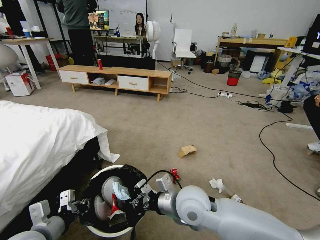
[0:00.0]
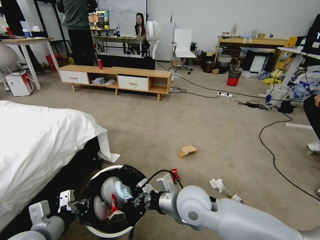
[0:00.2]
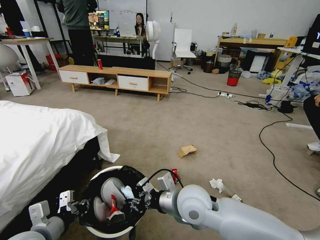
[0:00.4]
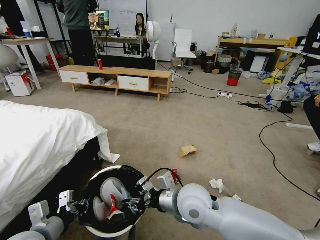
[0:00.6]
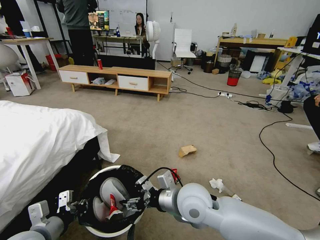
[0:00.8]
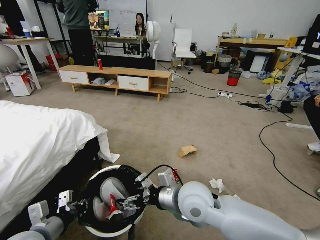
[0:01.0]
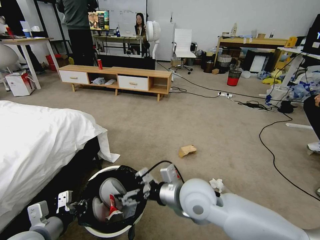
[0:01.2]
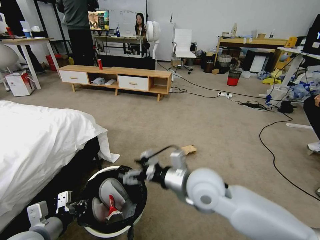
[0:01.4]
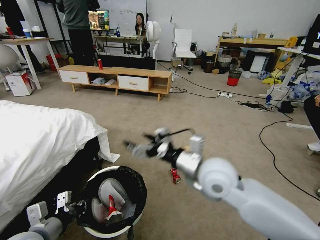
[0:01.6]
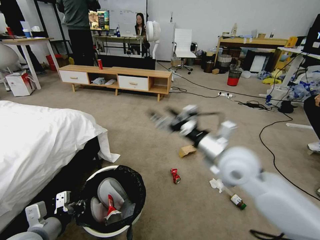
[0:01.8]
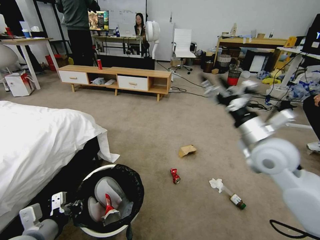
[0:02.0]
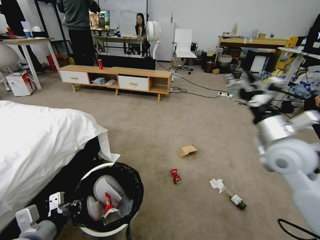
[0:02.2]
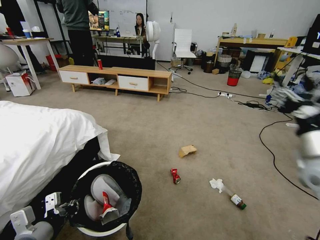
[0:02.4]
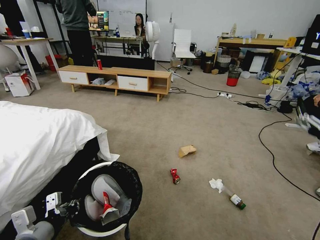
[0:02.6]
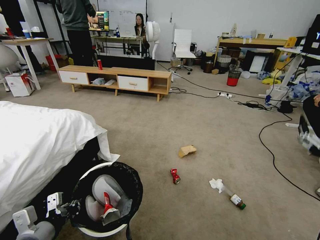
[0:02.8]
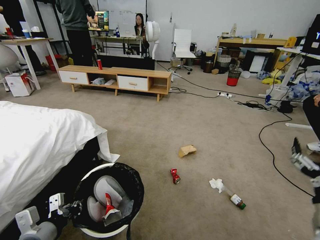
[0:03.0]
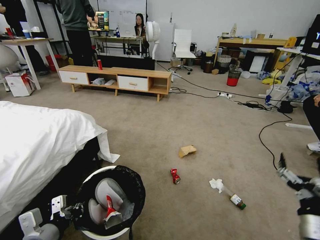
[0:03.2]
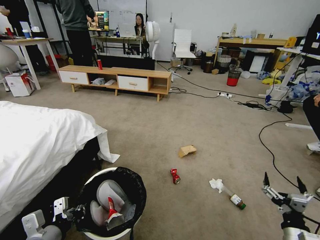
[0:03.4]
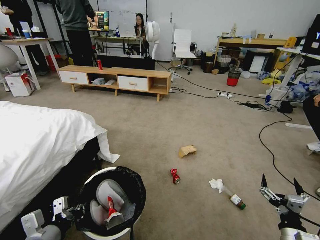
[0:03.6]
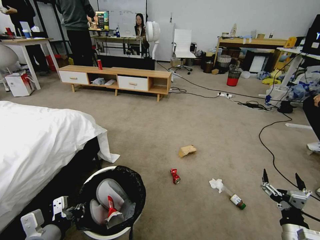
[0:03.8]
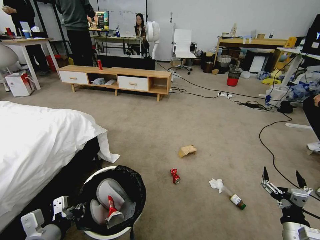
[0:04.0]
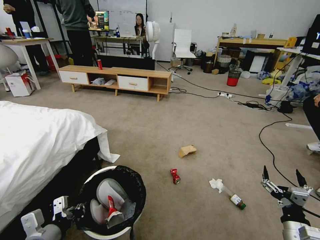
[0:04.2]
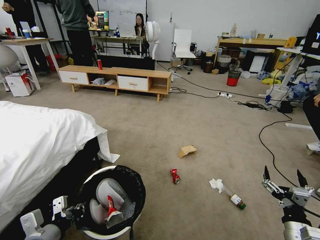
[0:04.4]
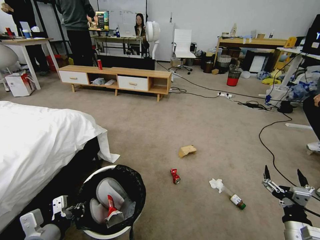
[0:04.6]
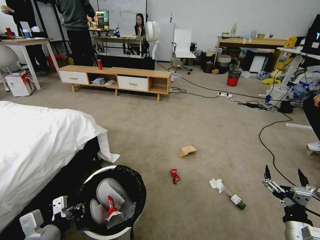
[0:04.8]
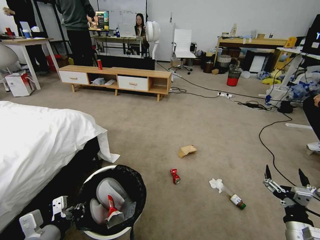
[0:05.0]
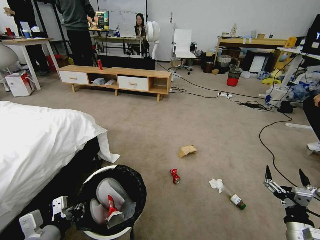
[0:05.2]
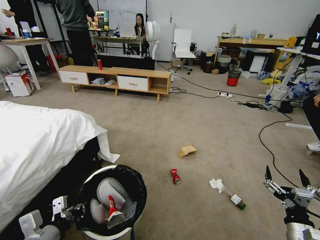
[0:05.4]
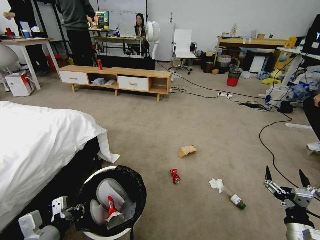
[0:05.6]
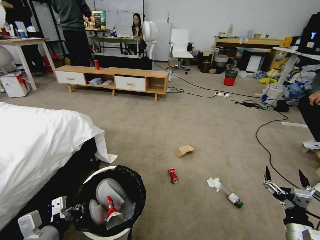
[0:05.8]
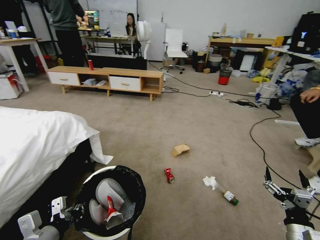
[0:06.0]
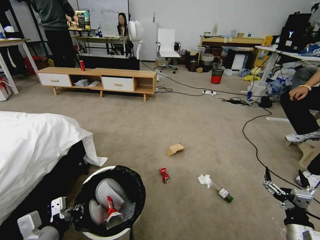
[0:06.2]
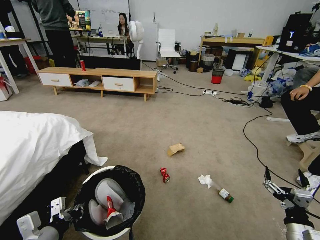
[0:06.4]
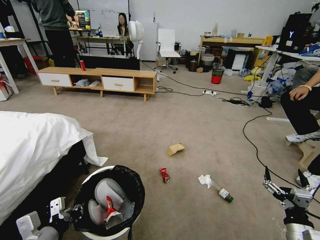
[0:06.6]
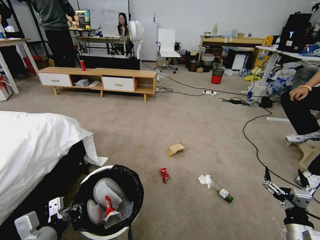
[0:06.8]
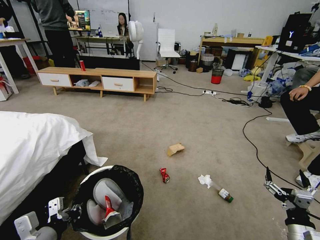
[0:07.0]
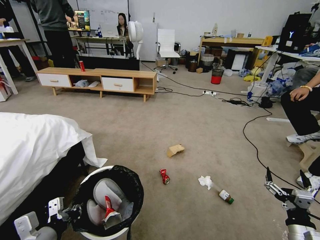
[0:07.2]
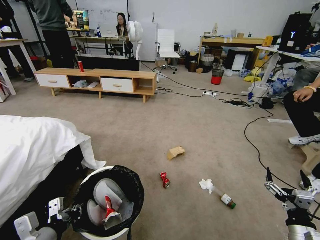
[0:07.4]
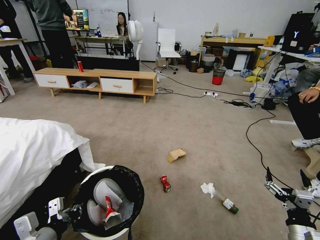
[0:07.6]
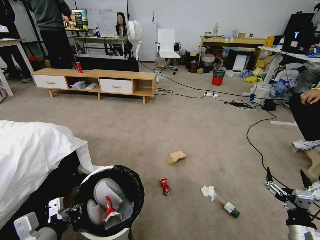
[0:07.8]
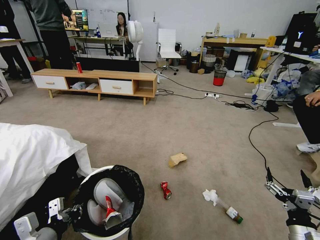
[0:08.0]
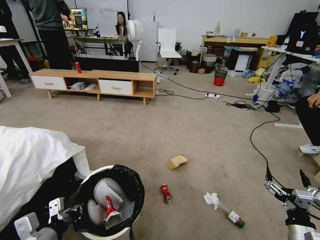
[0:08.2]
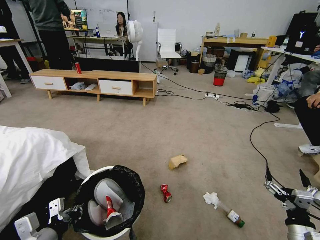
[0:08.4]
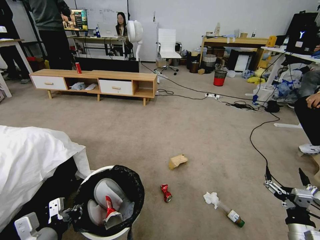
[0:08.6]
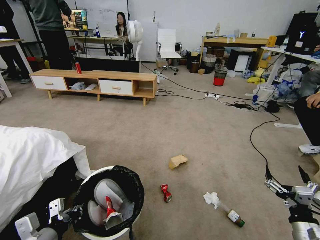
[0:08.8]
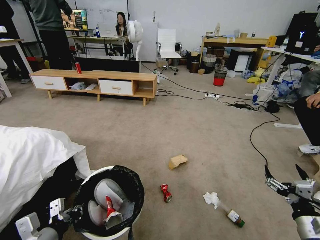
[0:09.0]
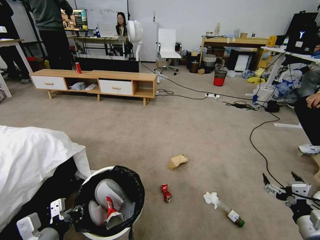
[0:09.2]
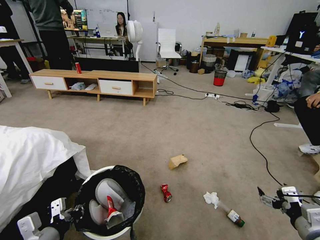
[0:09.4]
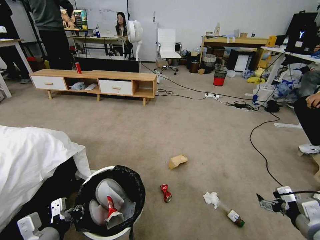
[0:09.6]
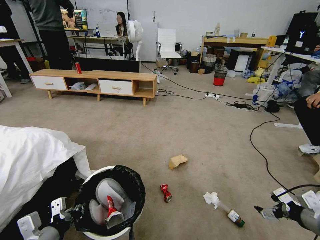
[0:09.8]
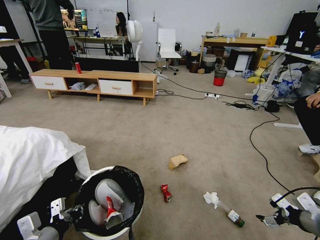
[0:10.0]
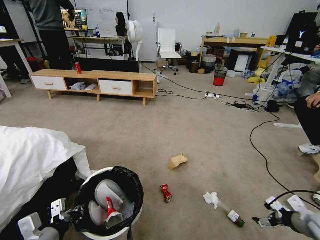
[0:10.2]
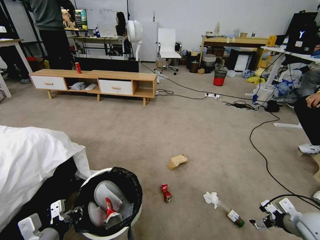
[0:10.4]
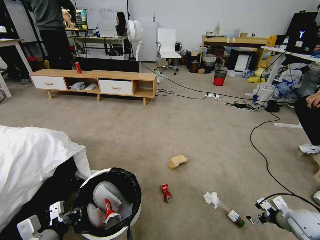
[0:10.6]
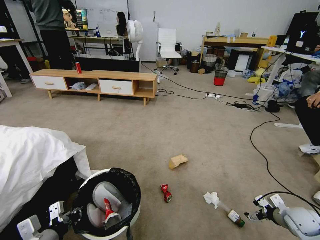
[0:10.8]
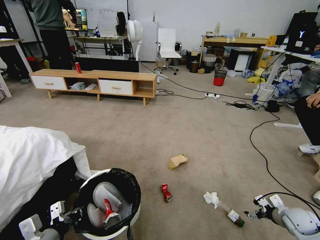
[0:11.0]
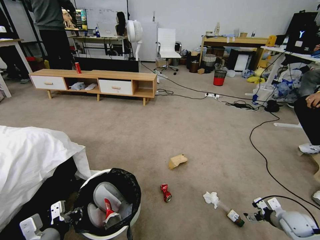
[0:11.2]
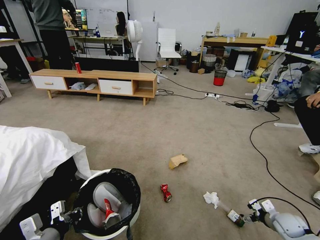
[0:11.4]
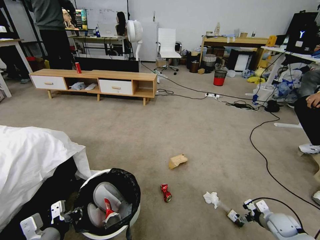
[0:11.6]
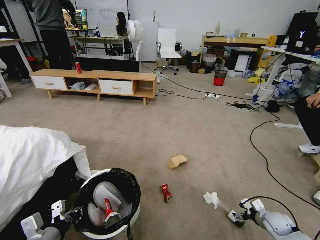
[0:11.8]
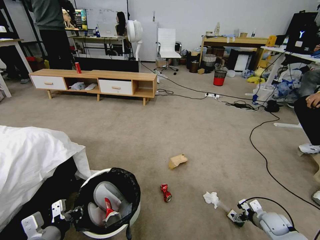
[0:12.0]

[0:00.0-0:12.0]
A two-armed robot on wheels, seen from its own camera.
Task of the whole recording: Pick up the trash bin, then pick up the garbage from the floor and place it into the trash bin.
0:00.0 to 0:01.6: The right gripper goes roughly 10 cm upward and to the right, and opens its fingers.
0:01.6 to 0:03.0: The right gripper moves to the right and backward, approximately 30 cm.
0:03.0 to 0:04.4: The right gripper heads downward, covering roughly 10 cm.
0:09.0 to 0:10.4: The right gripper is displaced forward and to the right by about 10 cm, and reaches roughly 10 cm upward, then returns.
0:10.4 to 0:12.0: The right gripper goes some 15 cm downward and forward.

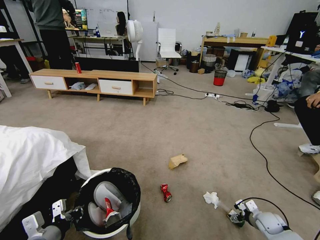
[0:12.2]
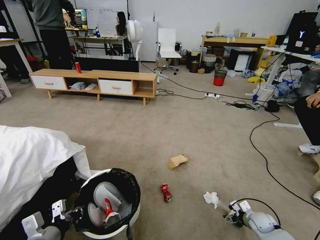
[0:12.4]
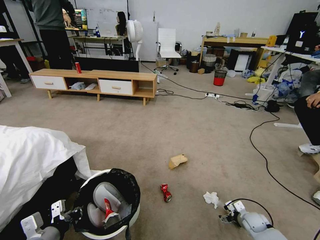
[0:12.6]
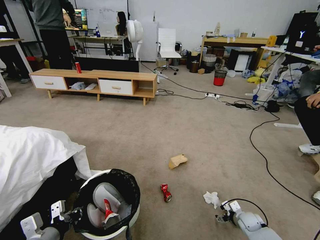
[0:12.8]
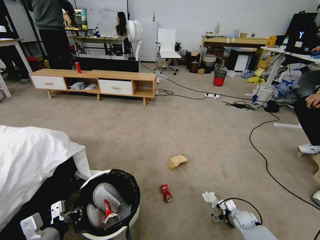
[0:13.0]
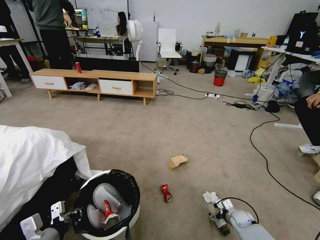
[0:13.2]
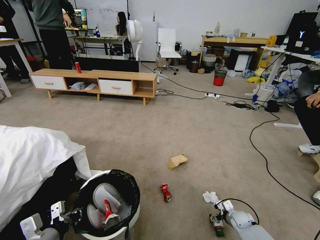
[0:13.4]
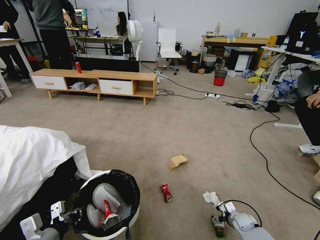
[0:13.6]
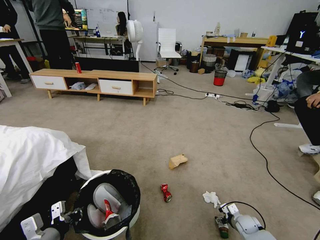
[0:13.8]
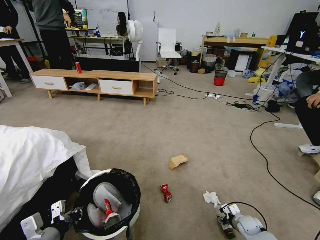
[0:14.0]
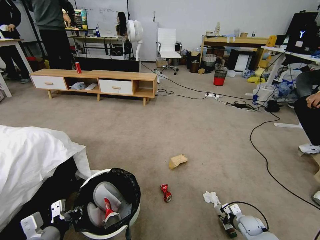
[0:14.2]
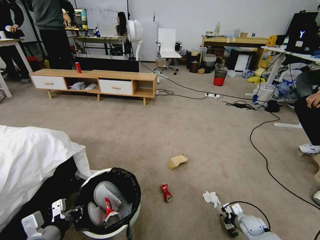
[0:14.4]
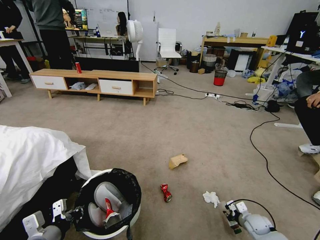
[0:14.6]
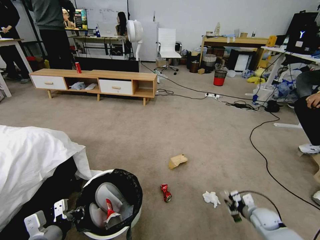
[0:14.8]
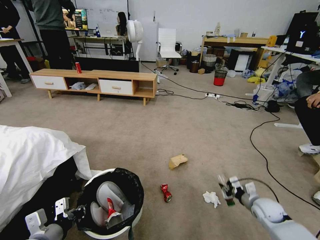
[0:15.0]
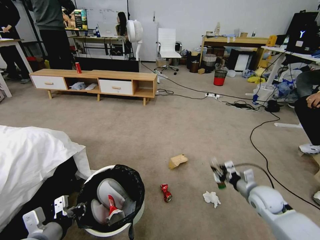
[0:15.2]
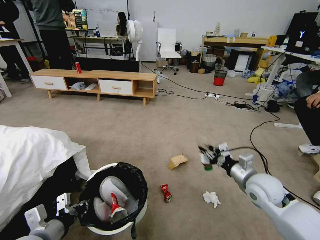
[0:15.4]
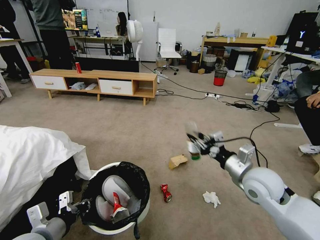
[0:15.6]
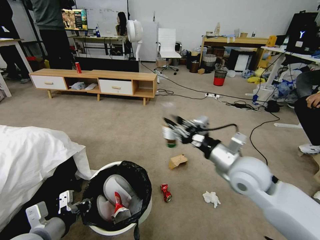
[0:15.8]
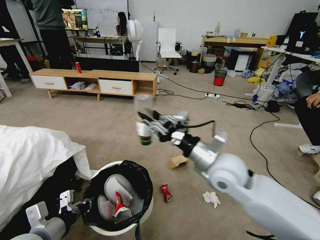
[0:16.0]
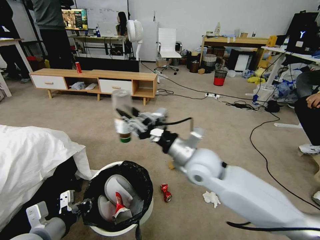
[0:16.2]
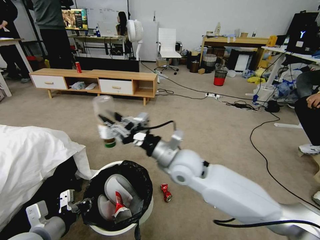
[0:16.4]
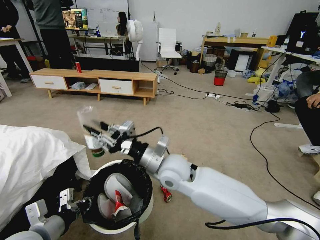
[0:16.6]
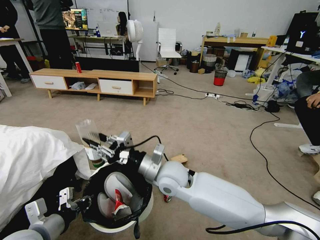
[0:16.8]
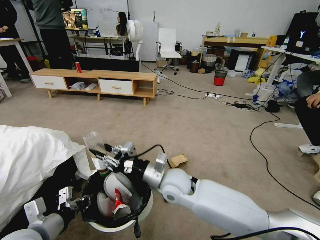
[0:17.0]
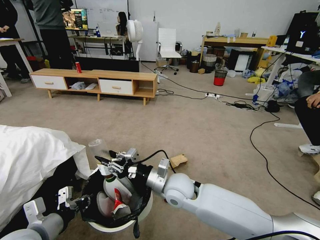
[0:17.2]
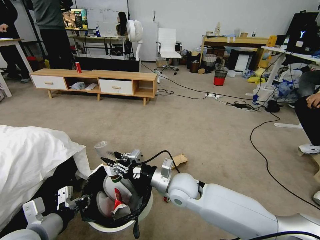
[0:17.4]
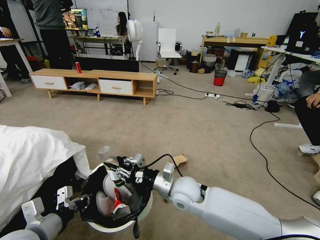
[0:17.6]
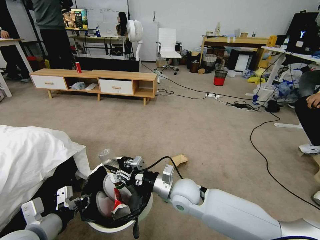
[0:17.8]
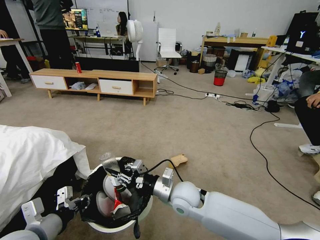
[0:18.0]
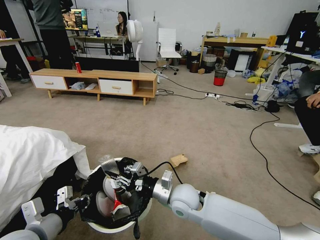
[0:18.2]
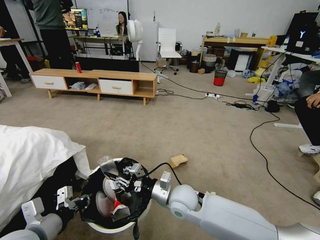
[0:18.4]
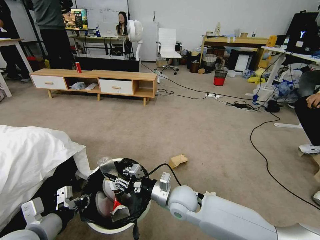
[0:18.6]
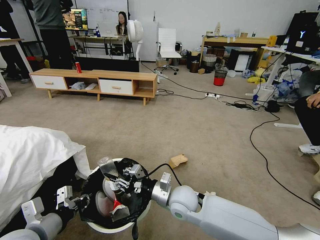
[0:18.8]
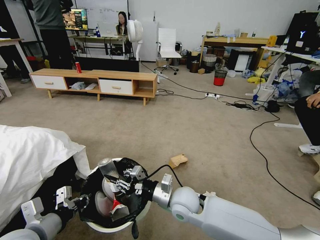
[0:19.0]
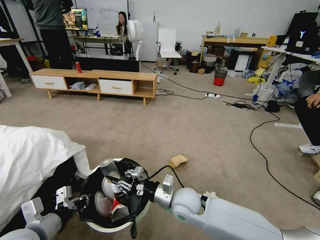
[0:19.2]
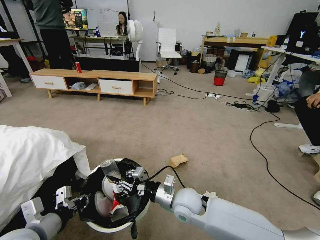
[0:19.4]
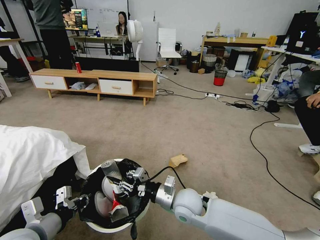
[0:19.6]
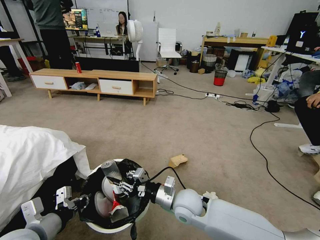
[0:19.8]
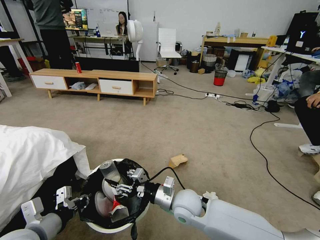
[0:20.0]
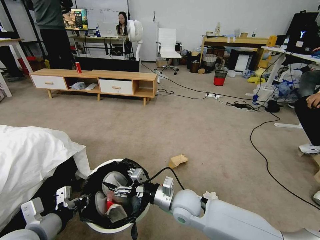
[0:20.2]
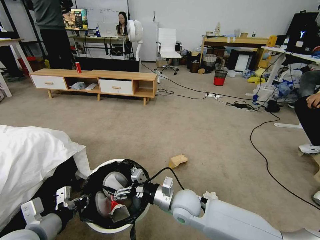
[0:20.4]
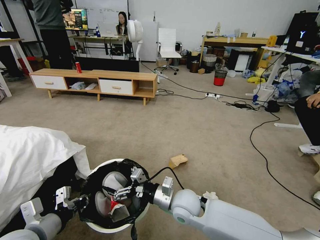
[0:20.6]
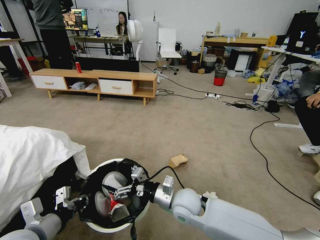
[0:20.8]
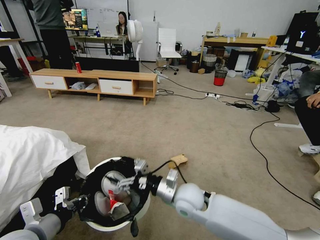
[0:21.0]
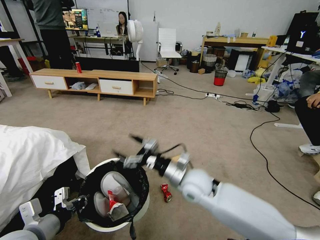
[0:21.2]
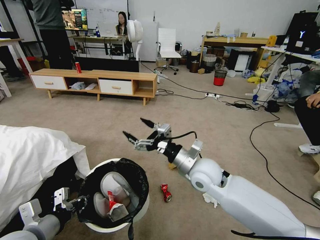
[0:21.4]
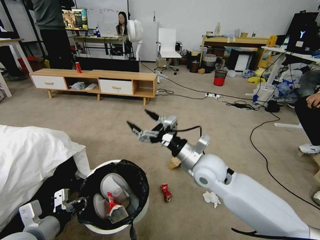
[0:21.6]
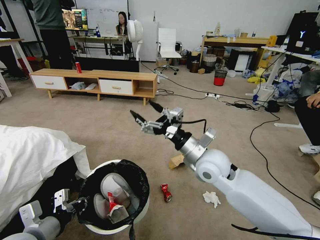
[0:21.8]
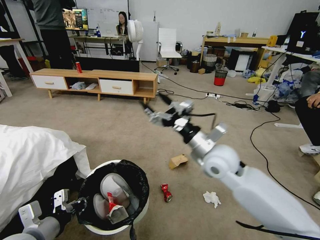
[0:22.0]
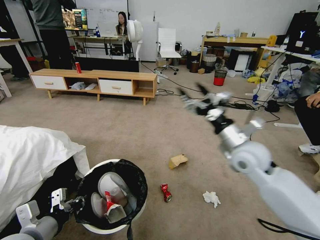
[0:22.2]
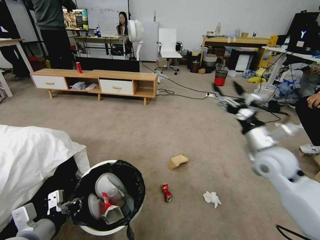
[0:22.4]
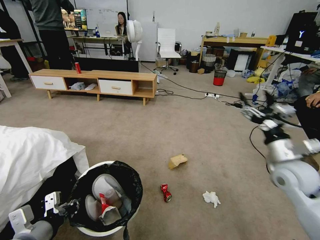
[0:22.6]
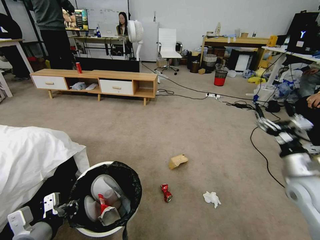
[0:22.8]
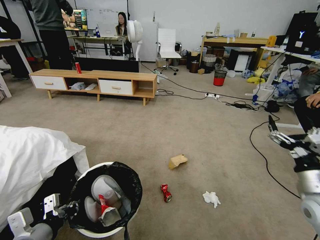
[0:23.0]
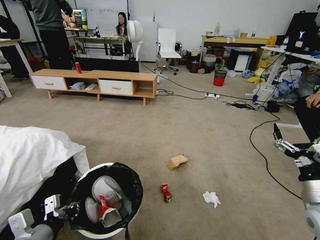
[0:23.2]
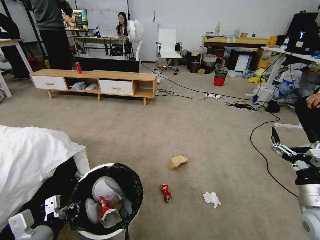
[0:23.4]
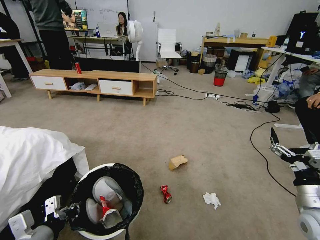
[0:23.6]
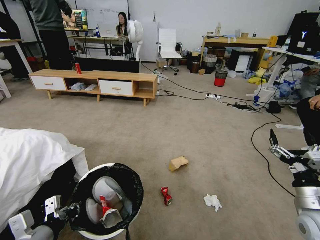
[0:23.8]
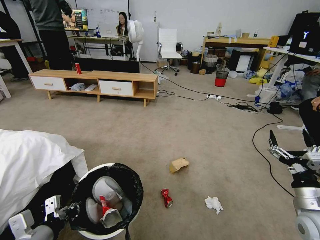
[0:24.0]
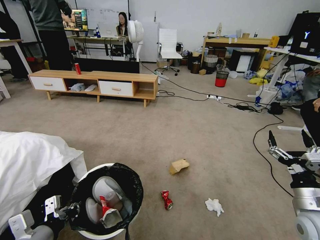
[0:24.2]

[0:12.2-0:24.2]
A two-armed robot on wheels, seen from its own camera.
Task of the whole recording: Pick up the trash bin, then pick up the garbage from the floor and place it into the trash bin.
0:12.2 to 0:13.8: The right gripper moves to the left and downward, about 10 cm.
0:13.8 to 0:15.2: The right gripper is displaced upward by about 20 cm, and closes up.
0:15.2 to 0:16.6: The right gripper goes roughly 40 cm to the left and upward.
0:16.6 to 0:18.2: The right gripper is displaced downward by roughly 10 cm.
0:18.2 to 0:19.8: The grippers move only a little.
0:19.8 to 0:21.2: The right gripper goes roughly 5 cm upward, and opens its fingers.
0:21.2 to 0:22.6: The right gripper moves to the right, some 25 cm.
0:22.6 to 0:24.2: The right gripper goes approximately 15 cm backward and downward.
